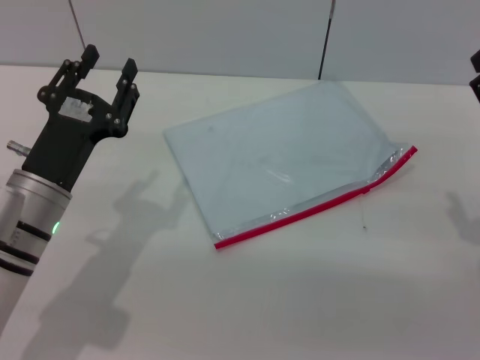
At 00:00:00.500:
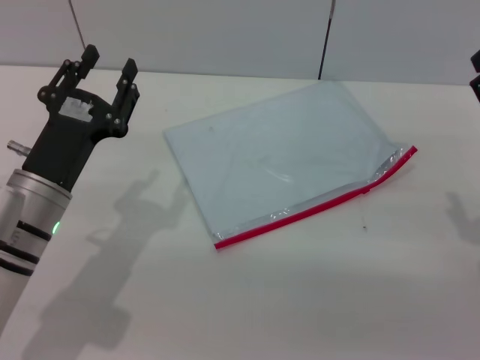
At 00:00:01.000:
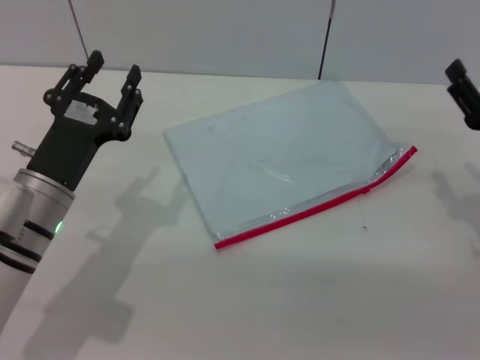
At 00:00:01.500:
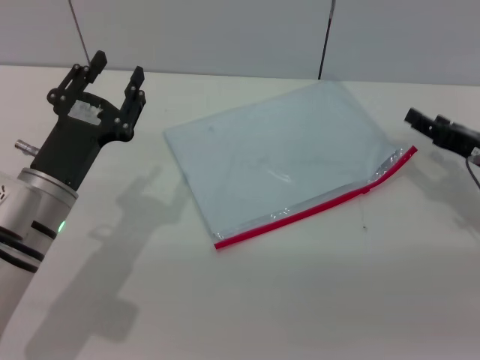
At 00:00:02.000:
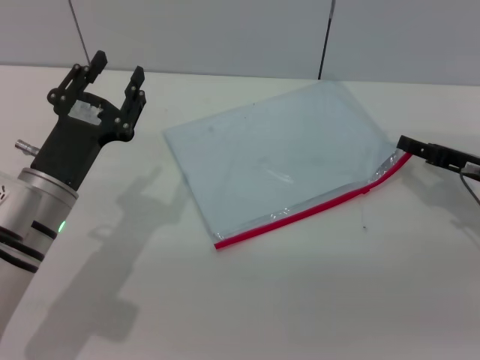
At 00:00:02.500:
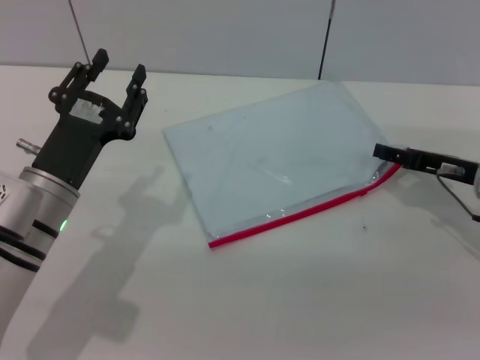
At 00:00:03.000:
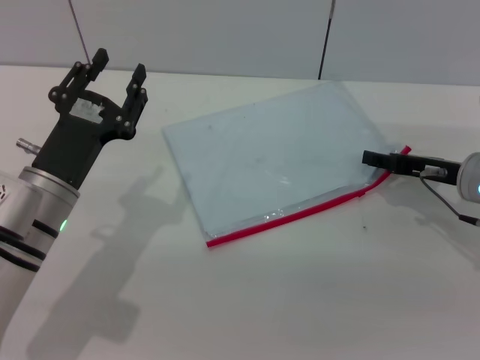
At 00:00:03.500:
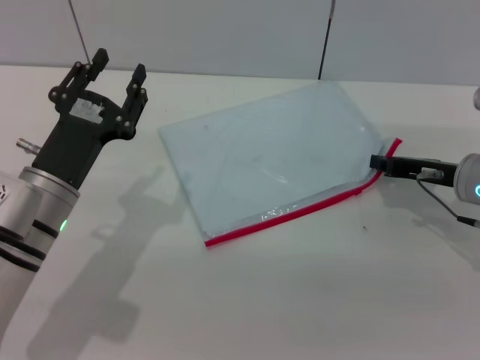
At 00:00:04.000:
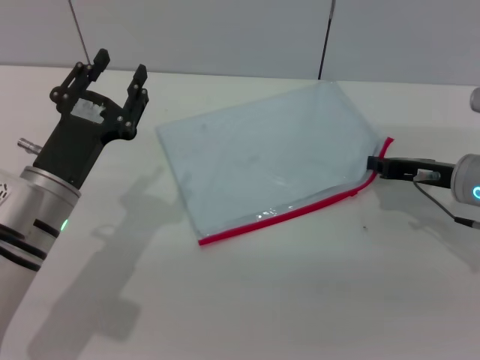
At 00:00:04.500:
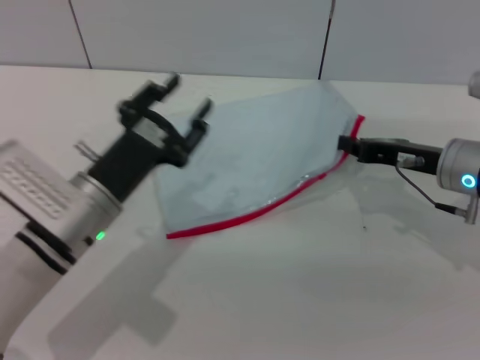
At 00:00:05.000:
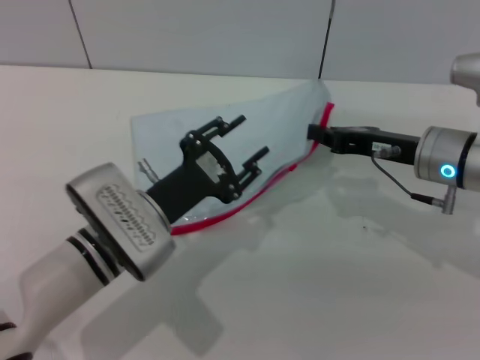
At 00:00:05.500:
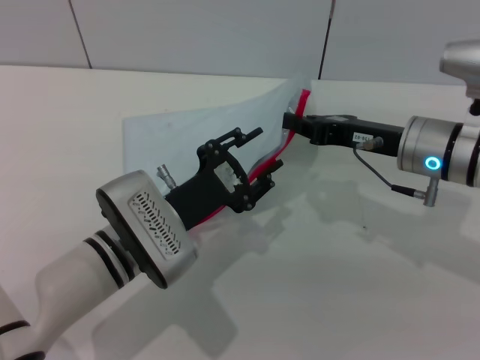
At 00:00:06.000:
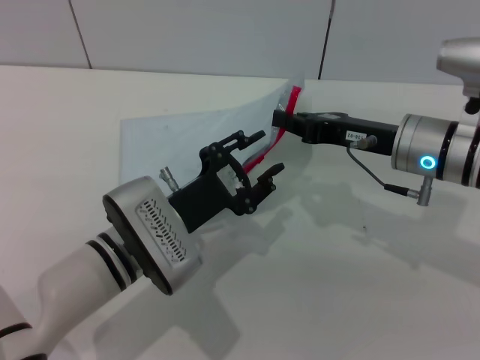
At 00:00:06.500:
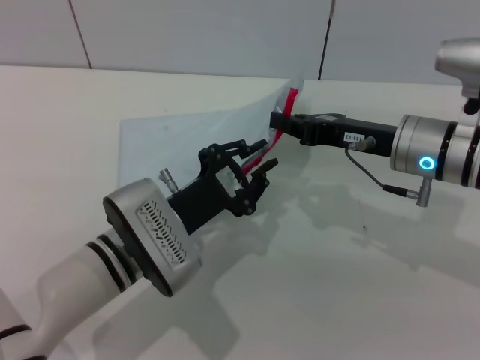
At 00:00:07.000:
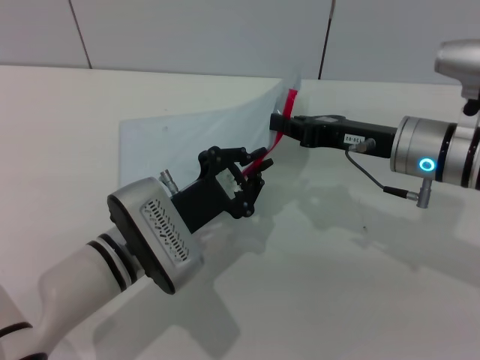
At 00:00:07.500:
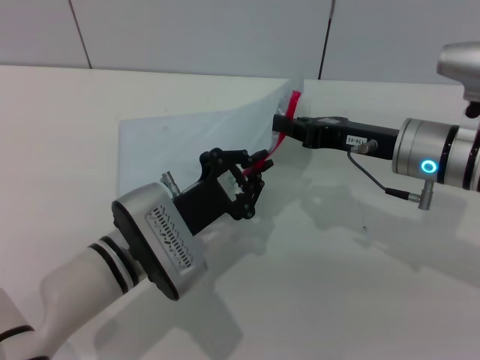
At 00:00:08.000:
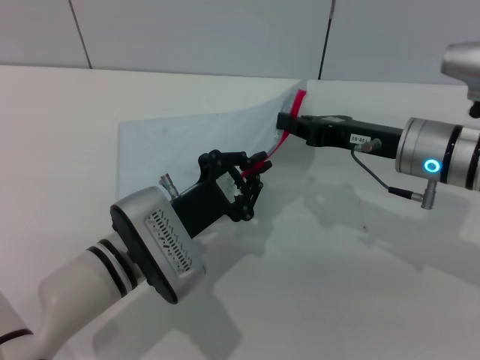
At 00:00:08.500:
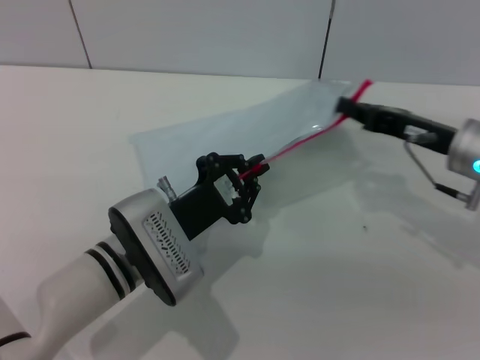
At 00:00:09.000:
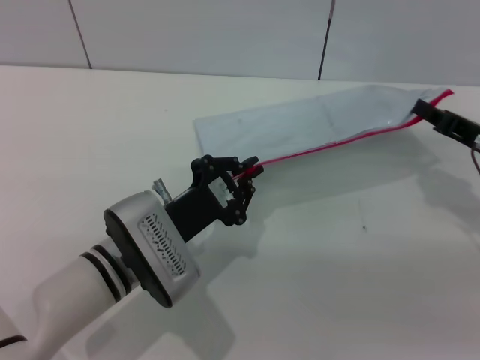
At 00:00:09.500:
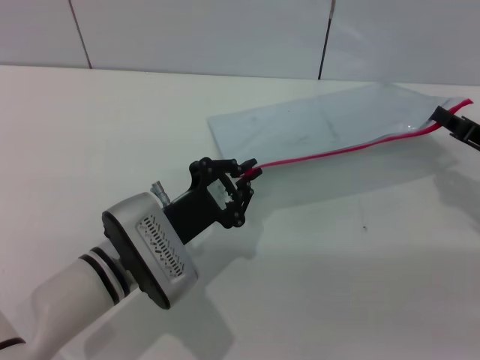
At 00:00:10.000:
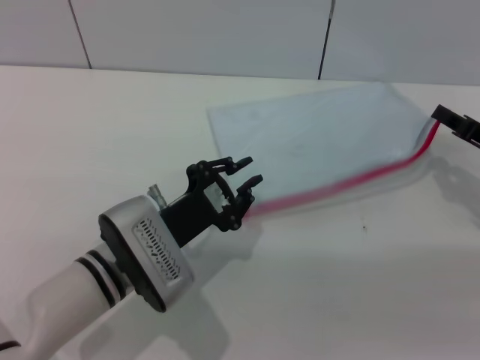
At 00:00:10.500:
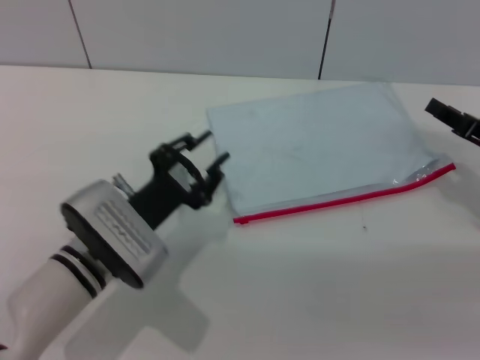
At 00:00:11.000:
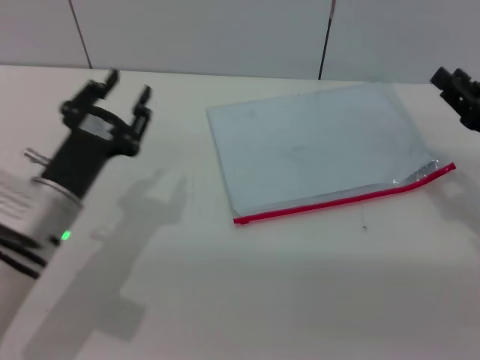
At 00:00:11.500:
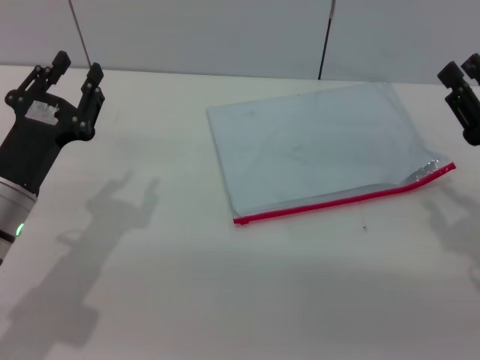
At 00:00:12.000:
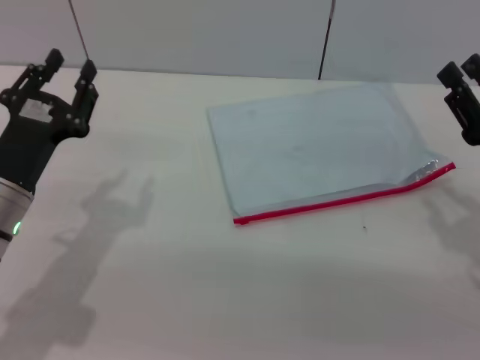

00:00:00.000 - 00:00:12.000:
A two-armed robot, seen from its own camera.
Step, 00:00:00.000 - 00:00:04.500: Pick up the transparent plastic bag with the right gripper.
Step, 00:00:05.000 - 00:00:10.000: Pulling up the zipper on the transparent plastic bag with the left gripper to close it.
Step, 00:00:10.500 - 00:00:11.000: Place the transparent plastic bag.
00:00:00.000 - 00:00:02.000: The right gripper is displaced forward by about 10 cm.
00:00:02.000 - 00:00:04.000: The right gripper closes up.
00:00:04.000 - 00:00:06.000: The left gripper is displaced to the right by some 10 cm. The right gripper travels to the left by some 5 cm.
00:00:06.000 - 00:00:08.000: The left gripper closes its fingers.
00:00:08.000 - 00:00:10.000: The right gripper shifts approximately 15 cm to the right.
00:00:10.000 - 00:00:12.000: The left gripper goes roughly 10 cm to the left, and opens, while the right gripper goes approximately 5 cm backward, and opens up.
